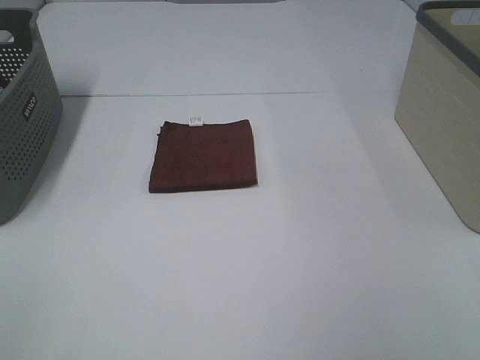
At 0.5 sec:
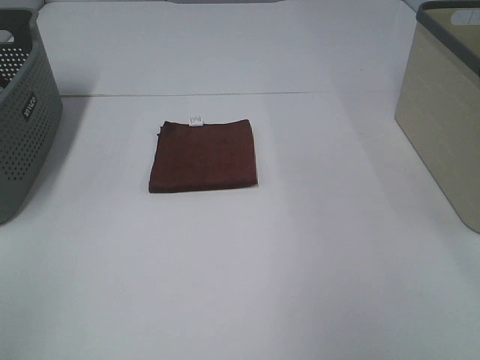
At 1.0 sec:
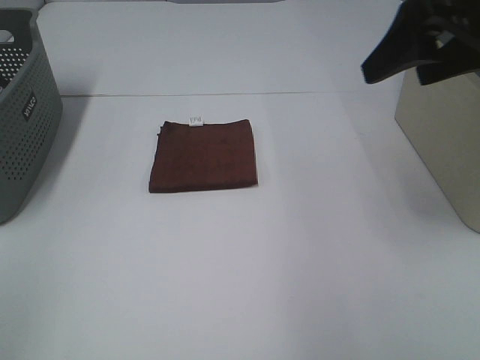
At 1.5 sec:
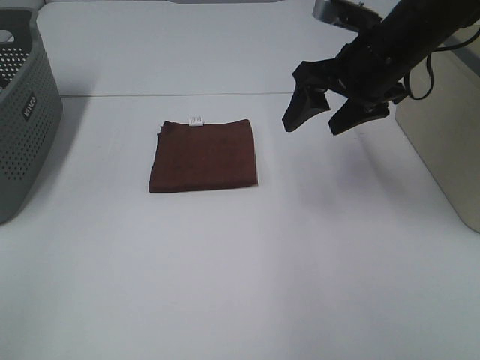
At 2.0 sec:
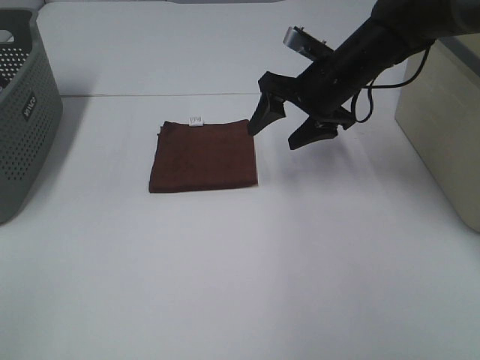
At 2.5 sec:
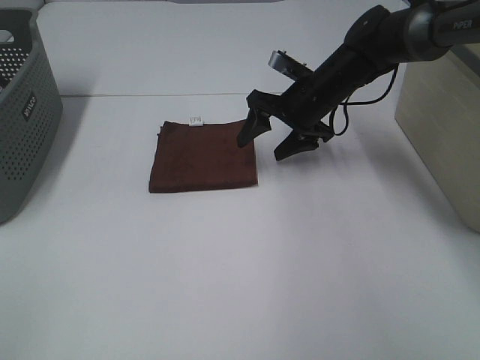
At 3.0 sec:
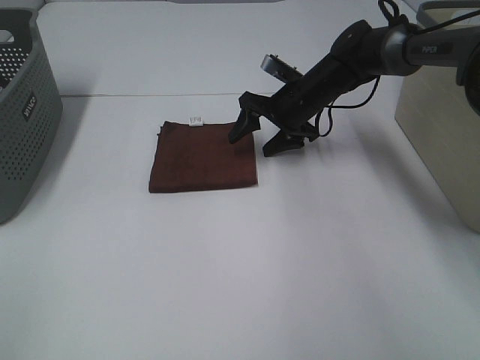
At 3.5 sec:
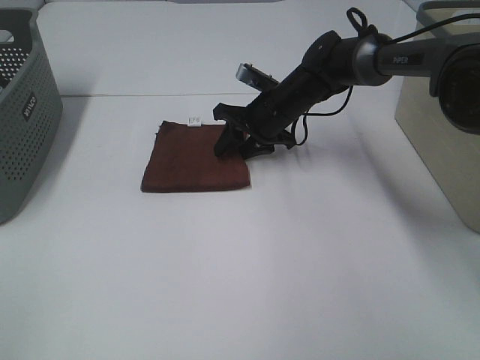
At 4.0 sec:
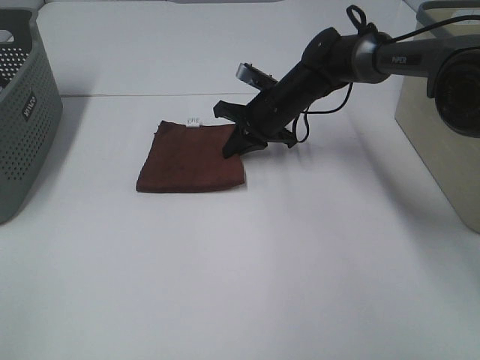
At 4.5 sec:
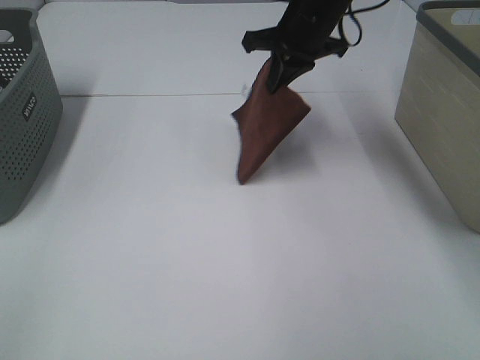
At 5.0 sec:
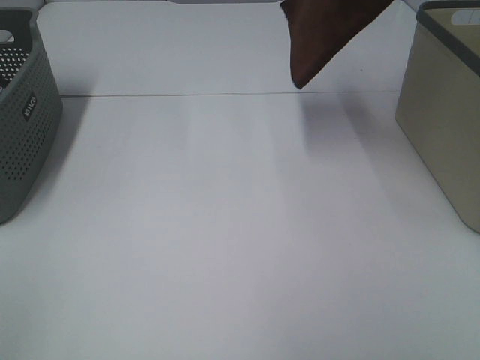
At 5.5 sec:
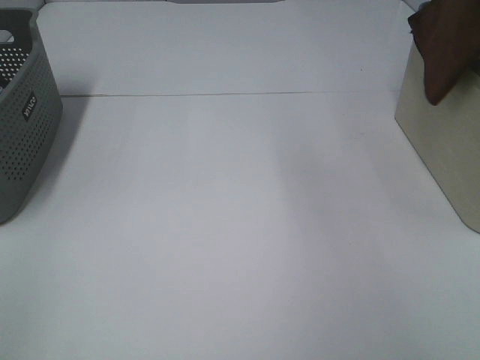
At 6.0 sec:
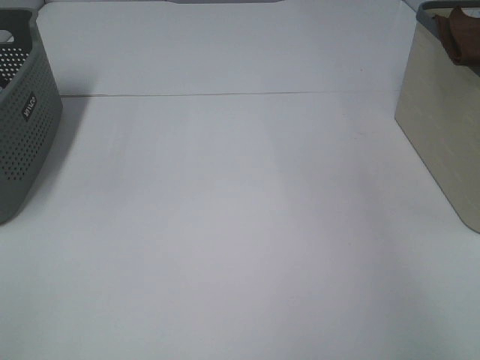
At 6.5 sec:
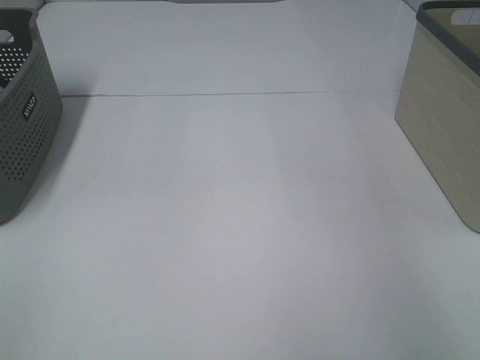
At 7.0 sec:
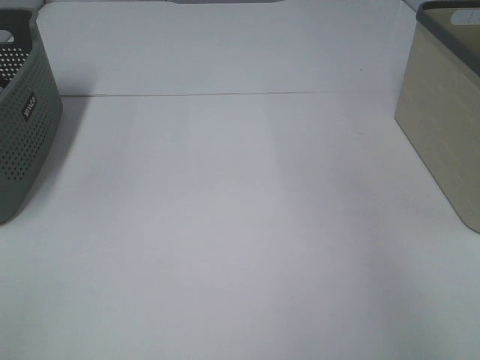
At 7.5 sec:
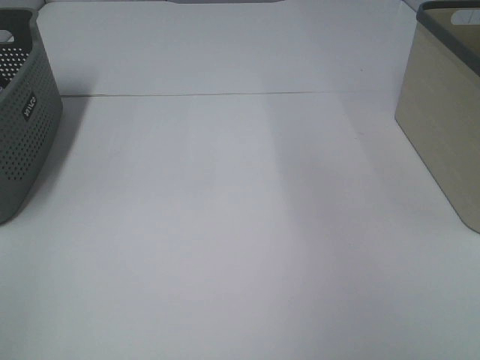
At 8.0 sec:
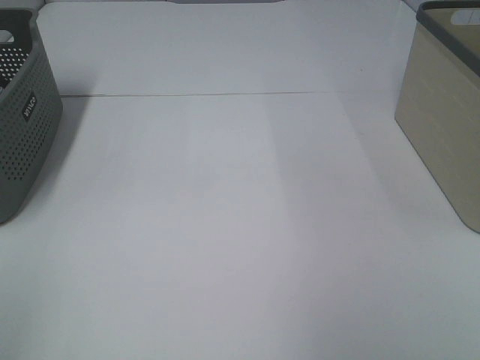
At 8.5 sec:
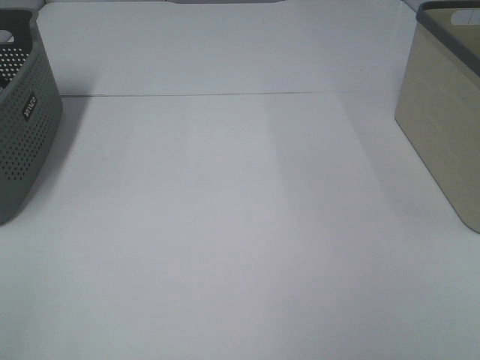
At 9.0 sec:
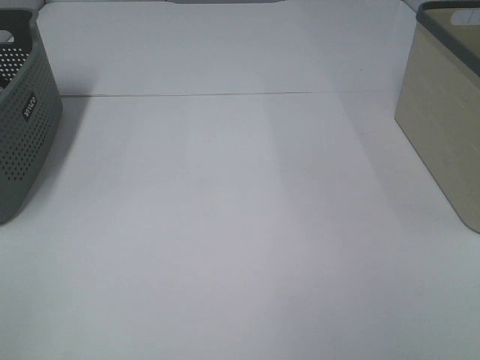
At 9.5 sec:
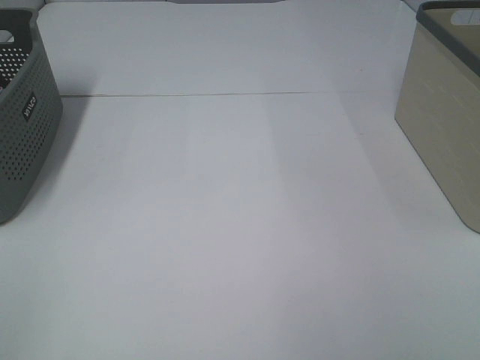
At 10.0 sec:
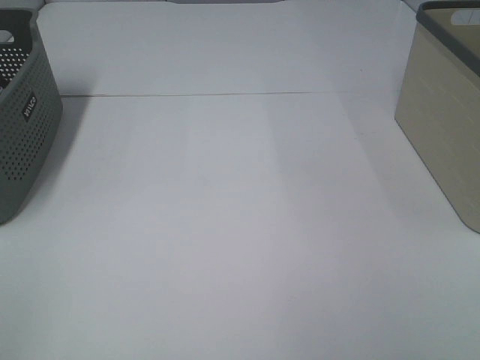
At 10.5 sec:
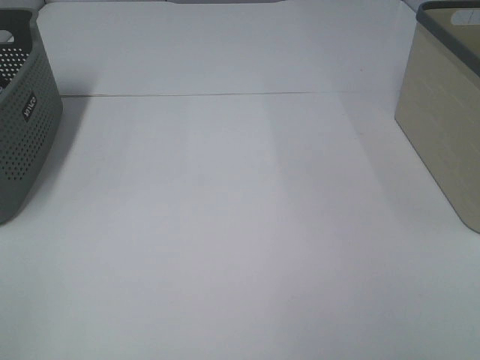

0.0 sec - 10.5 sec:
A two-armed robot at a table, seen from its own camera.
Step, 0.0 sec - 3.5 sec: Right hand: grab the folded brown towel.
Step, 4.0 sec - 6.5 sec: Right hand: place the brown towel in right basket.
0.0 sec - 2.0 sec: The right gripper shifts approximately 40 cm forward, to the left and downward.
2.0 sec - 4.0 sec: The right gripper moves downward, to the left and forward, some 10 cm, and closes up.
4.0 sec - 6.5 sec: The right gripper moves to the right and upward, about 40 cm, and opens.
